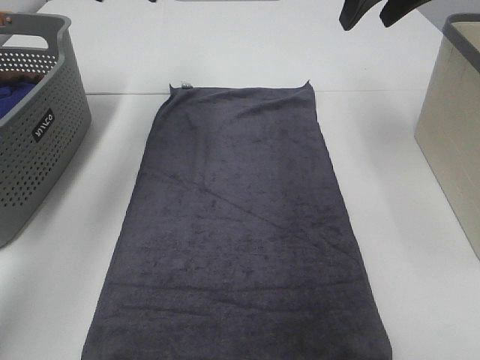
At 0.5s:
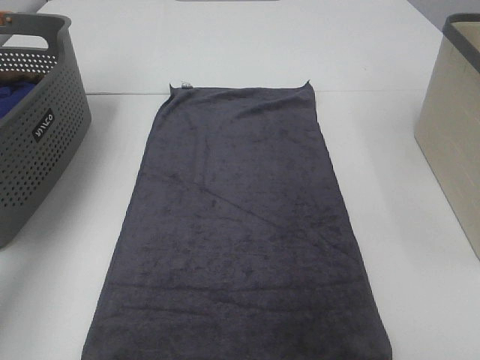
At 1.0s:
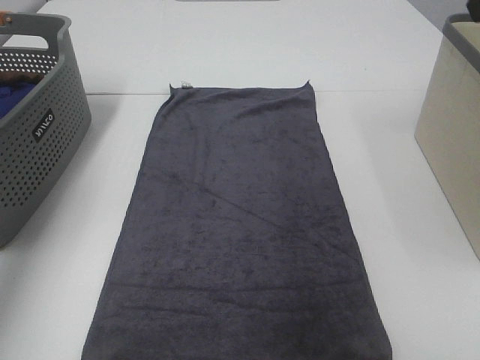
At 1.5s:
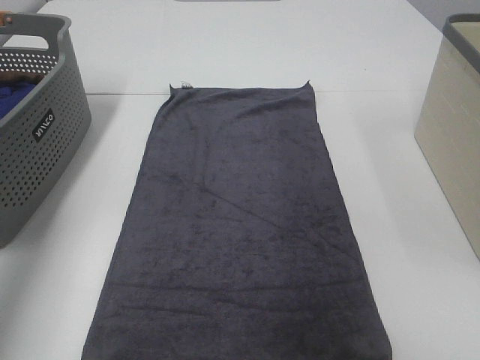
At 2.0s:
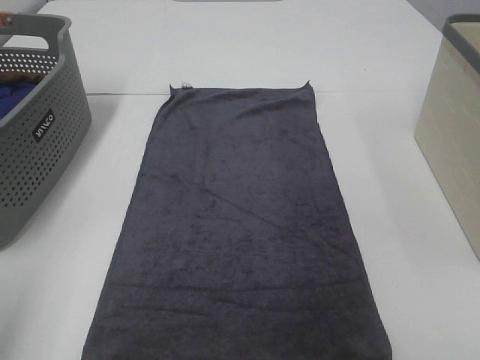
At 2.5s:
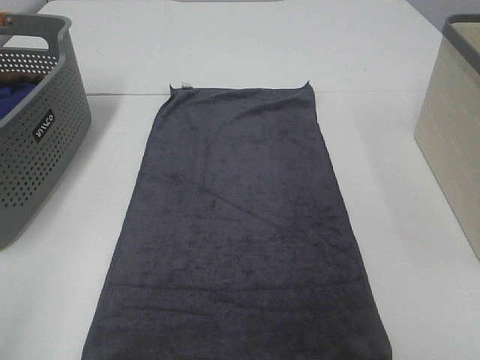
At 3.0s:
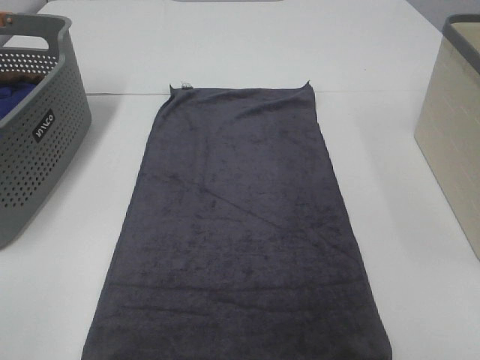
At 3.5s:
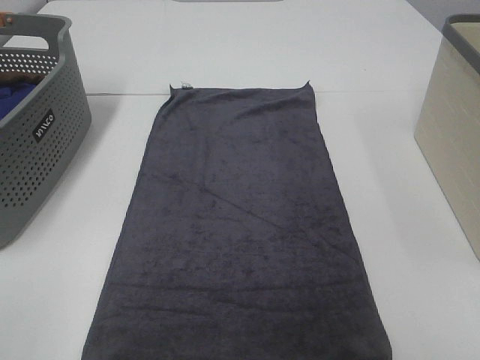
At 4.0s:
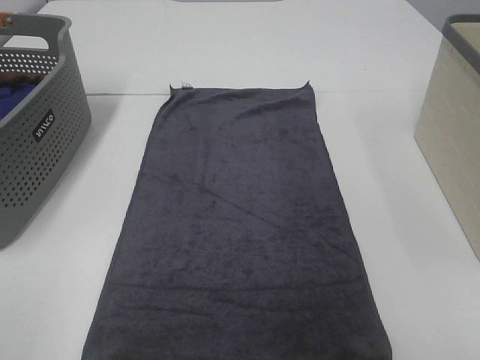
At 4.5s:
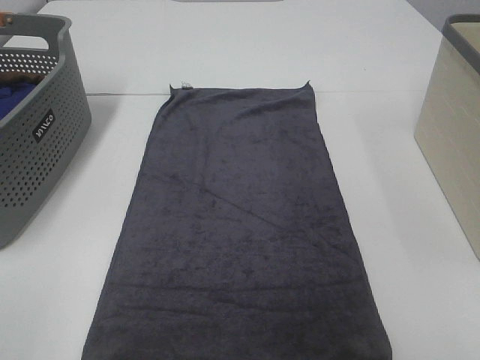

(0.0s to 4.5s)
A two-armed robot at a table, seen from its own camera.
Task of the whole recording: Remove the towel and place it.
0.0s - 2.0s: The grippers both shift backward by roughly 40 cm.
2.0s - 4.5s: The left gripper goes roughly 10 cm backward.

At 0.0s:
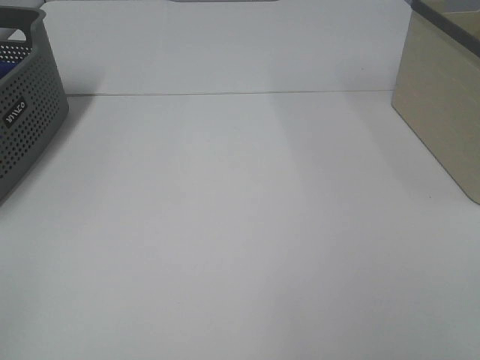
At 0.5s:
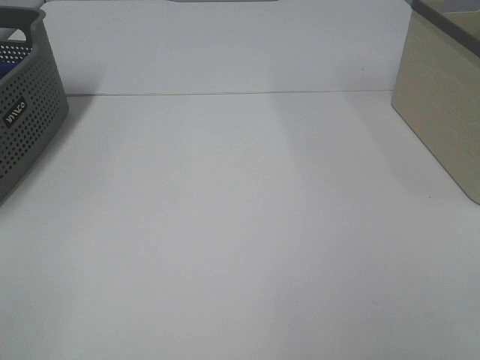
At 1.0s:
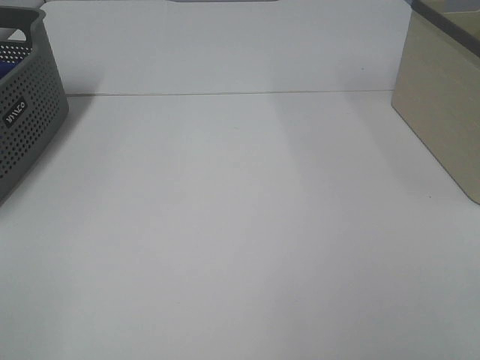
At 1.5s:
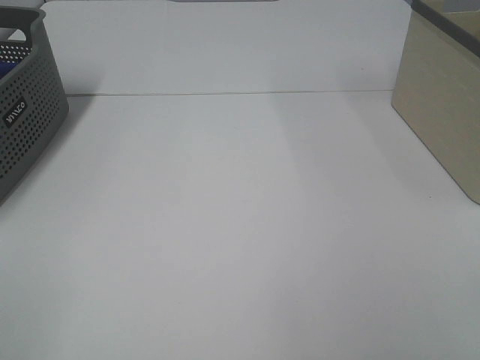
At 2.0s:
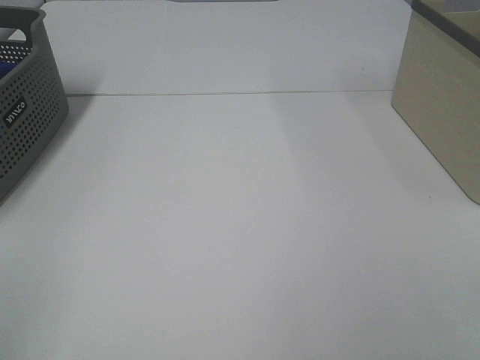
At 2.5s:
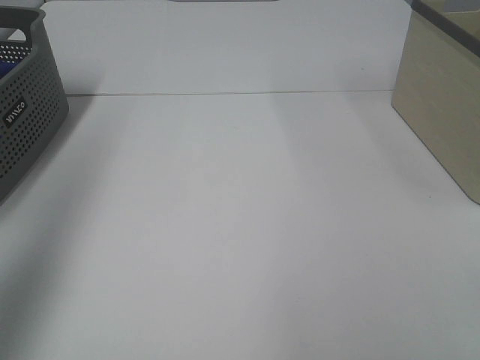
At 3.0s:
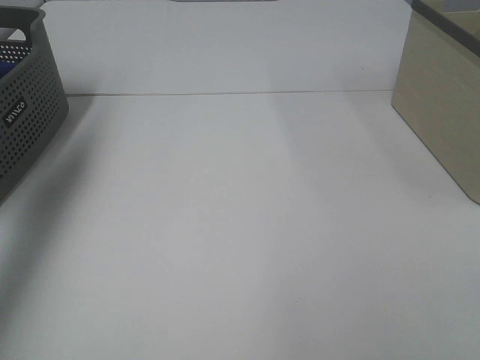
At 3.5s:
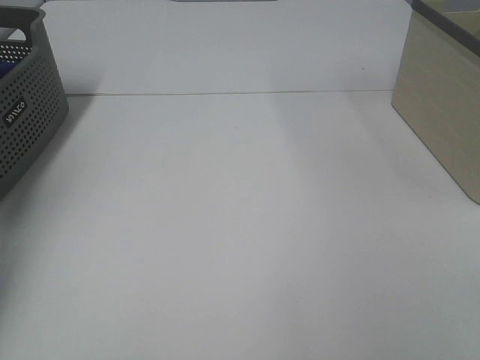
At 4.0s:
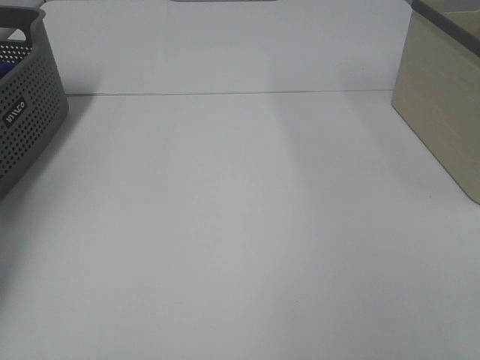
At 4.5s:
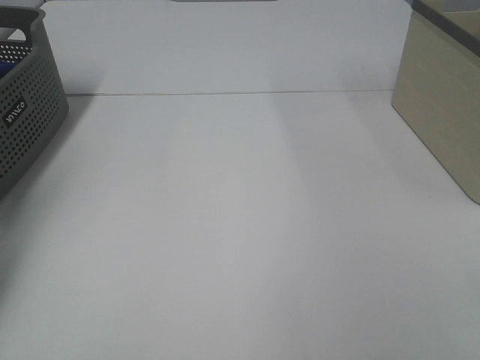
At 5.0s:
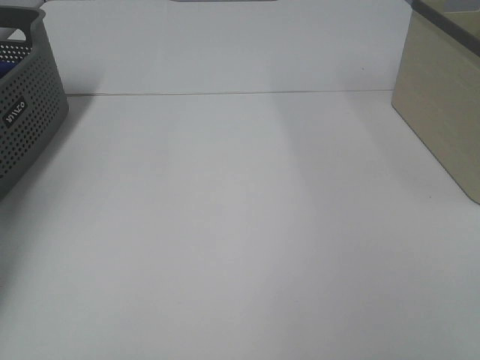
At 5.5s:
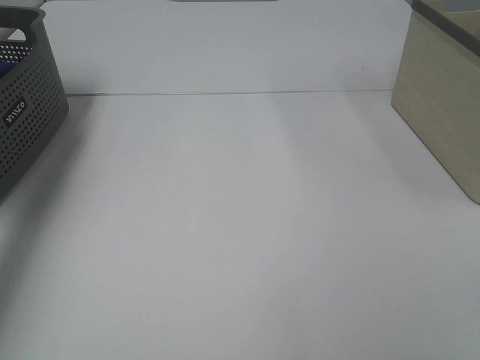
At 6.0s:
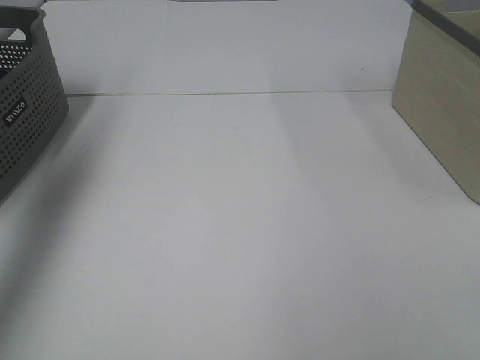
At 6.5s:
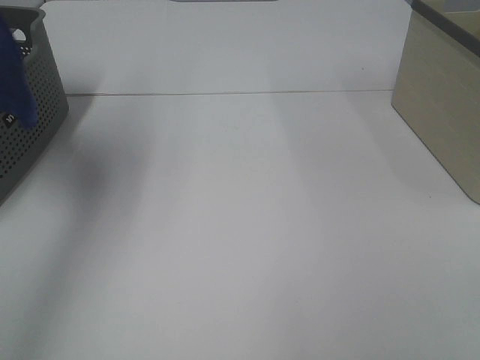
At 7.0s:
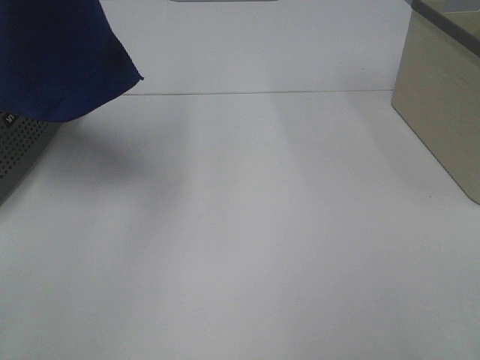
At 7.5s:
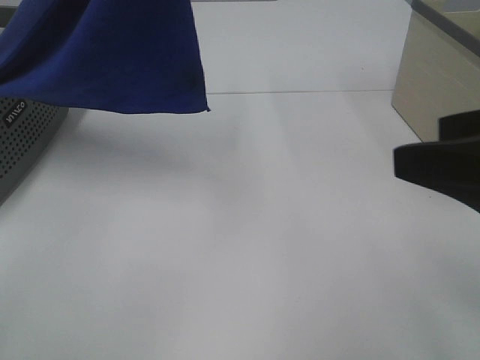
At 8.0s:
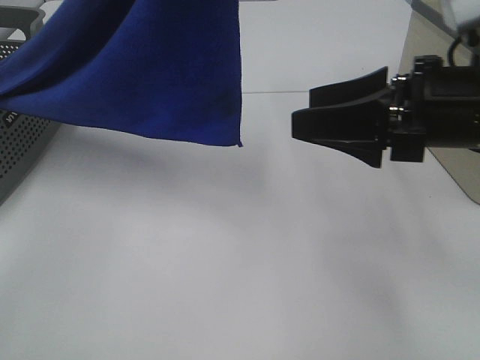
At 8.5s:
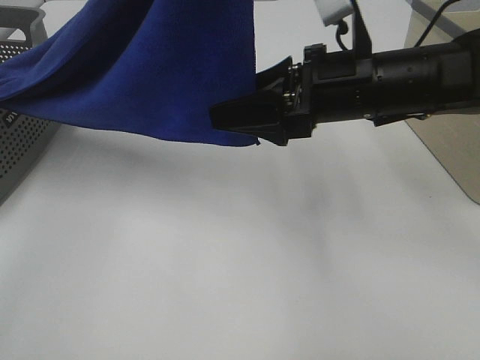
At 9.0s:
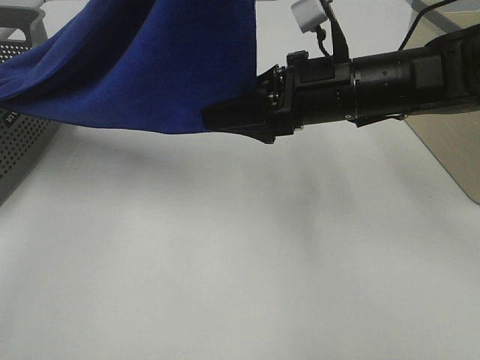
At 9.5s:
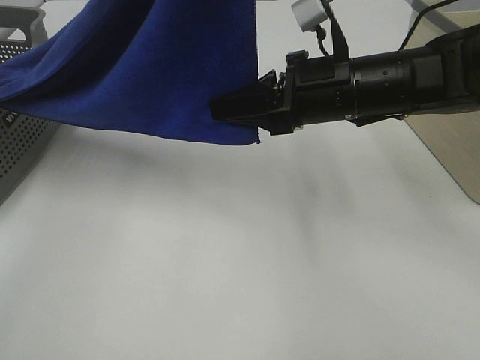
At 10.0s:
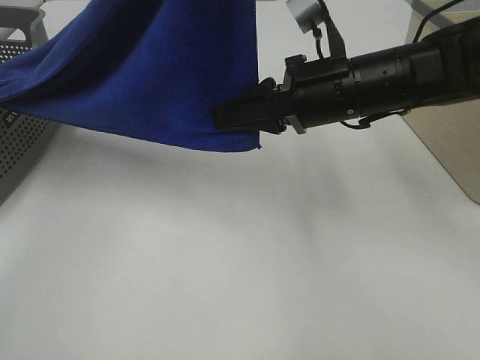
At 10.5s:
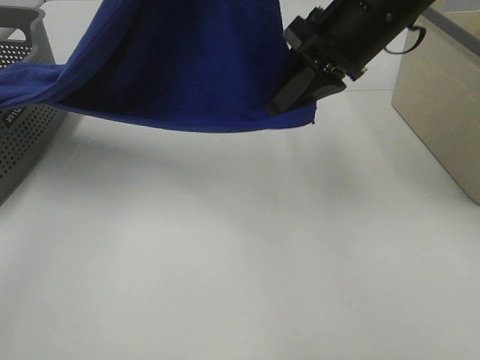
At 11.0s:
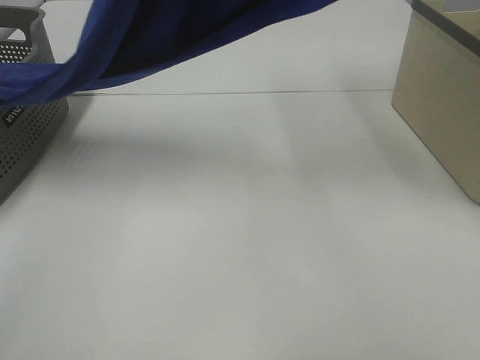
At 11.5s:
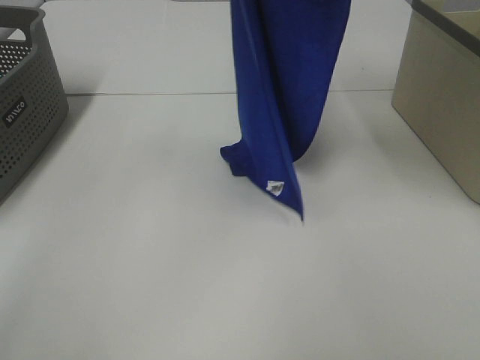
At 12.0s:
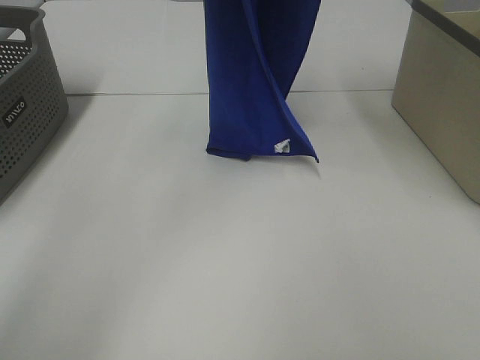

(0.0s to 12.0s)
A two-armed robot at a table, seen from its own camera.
Task of the whole recording: Remove the towel and place it.
Step, 6.5s - 11.0s: Right hand: grab a corner of the blue towel and straighten it.
2.0s - 4.0s: The left gripper heads forward, covering approximately 50 cm.
4.0s - 6.0s: The left gripper heads upward and backward, covering roughly 30 cm, and closes up.
6.0s - 8.0s: The left gripper is displaced to the right by some 30 cm. Meanwhile the right gripper moves forward, some 25 cm.
8.0s - 10.0s: The right gripper moves to the left and forward, about 10 cm, and closes up.
10.0s - 12.0s: The right gripper goes approximately 25 cm upward; the left gripper moves forward, roughly 15 cm.

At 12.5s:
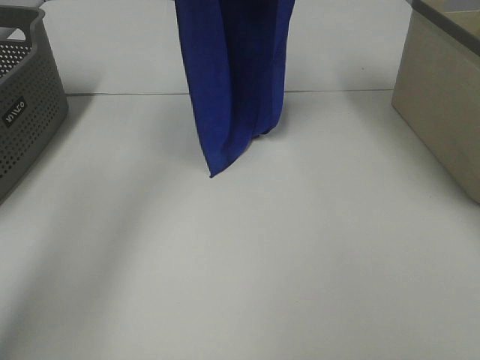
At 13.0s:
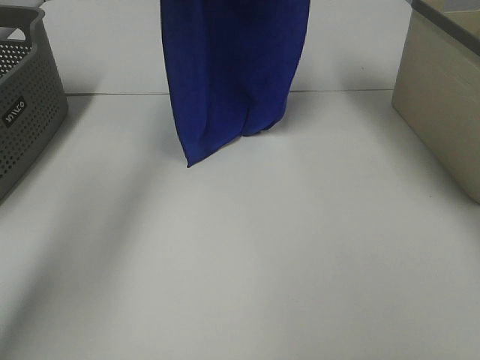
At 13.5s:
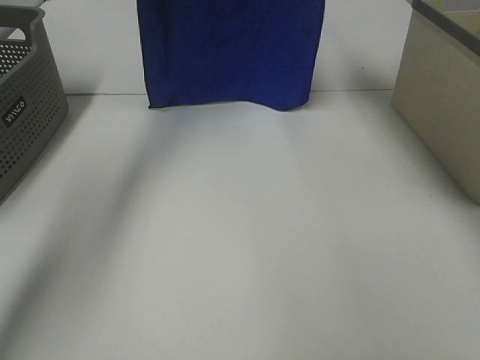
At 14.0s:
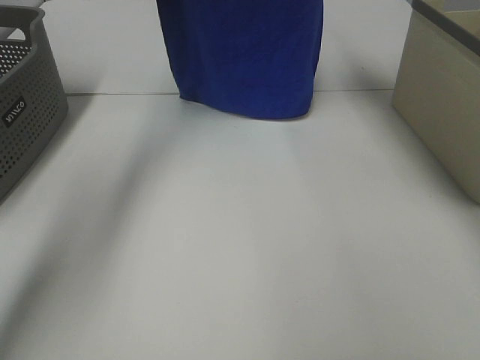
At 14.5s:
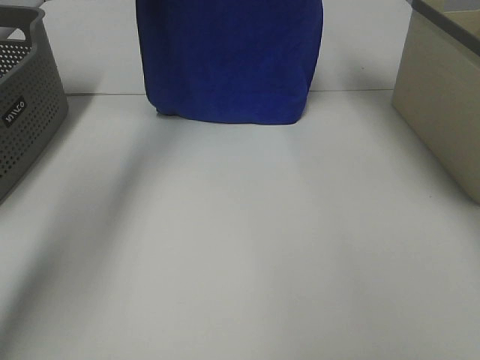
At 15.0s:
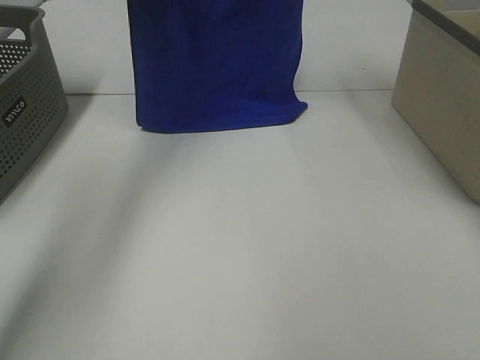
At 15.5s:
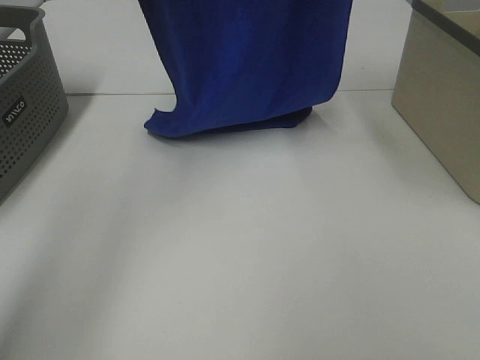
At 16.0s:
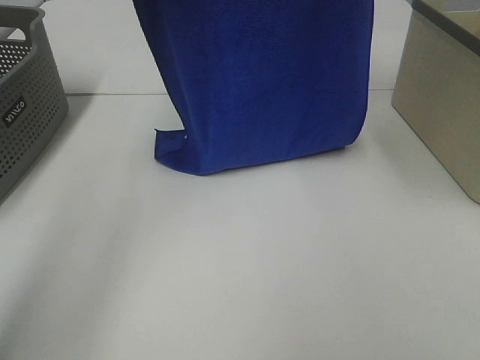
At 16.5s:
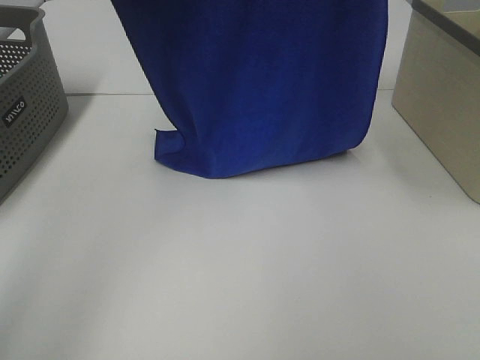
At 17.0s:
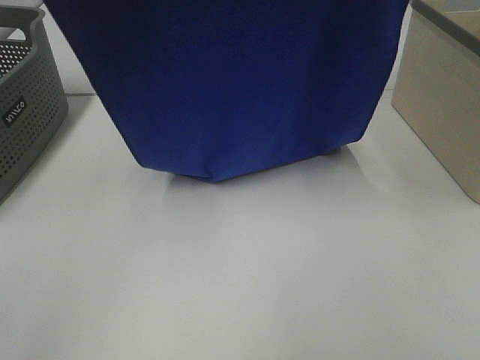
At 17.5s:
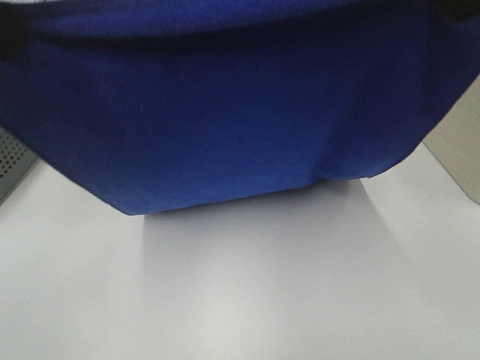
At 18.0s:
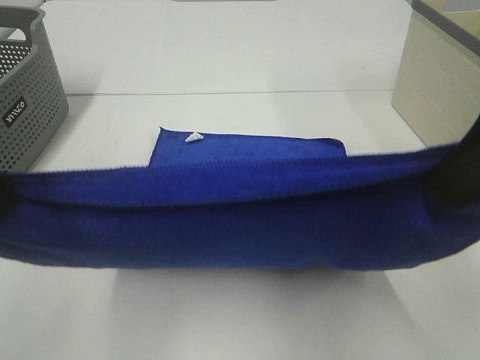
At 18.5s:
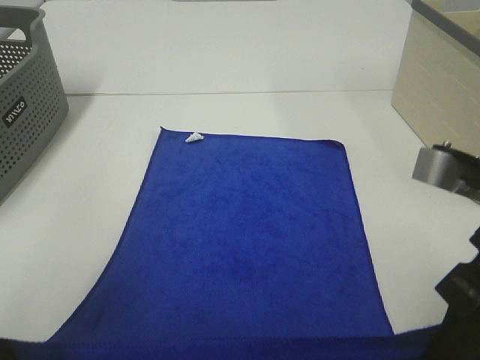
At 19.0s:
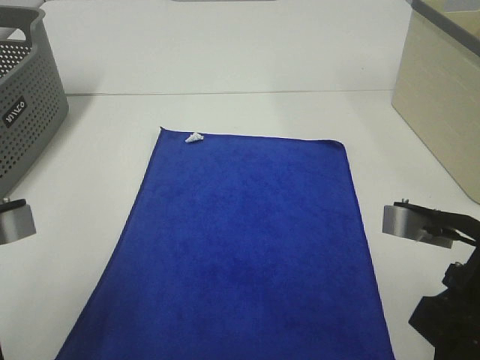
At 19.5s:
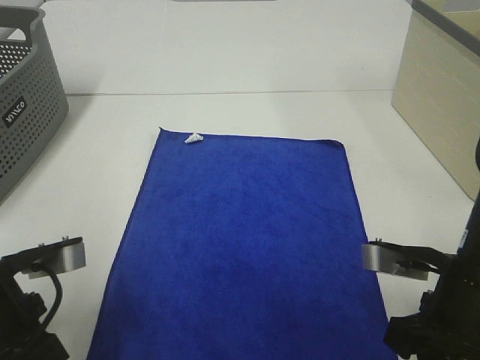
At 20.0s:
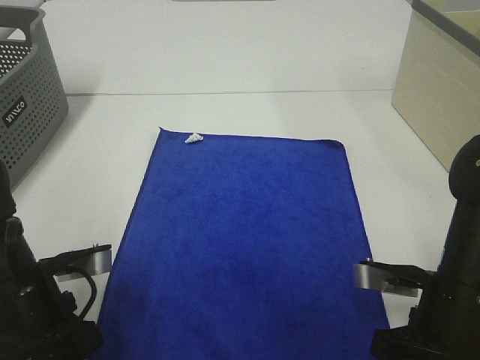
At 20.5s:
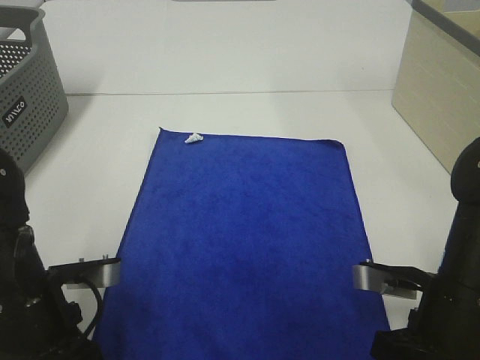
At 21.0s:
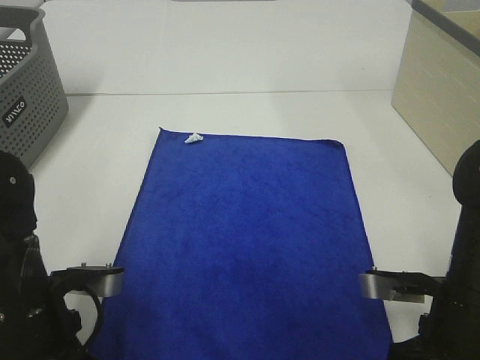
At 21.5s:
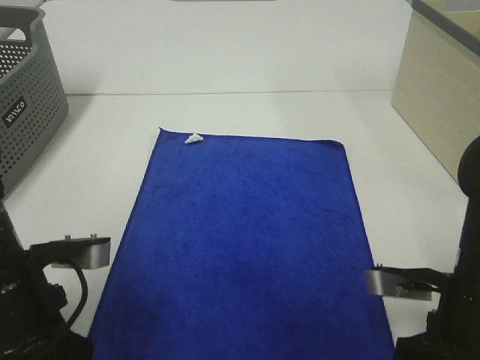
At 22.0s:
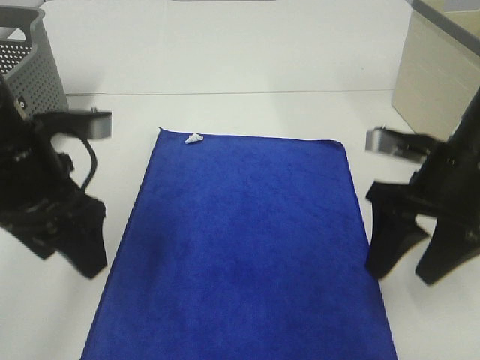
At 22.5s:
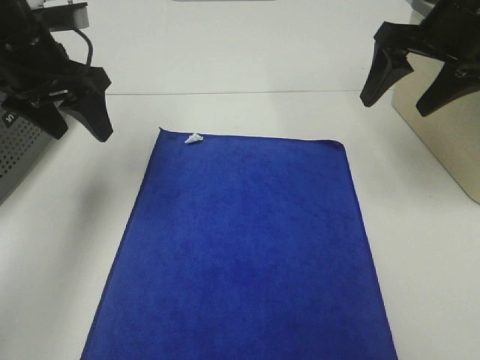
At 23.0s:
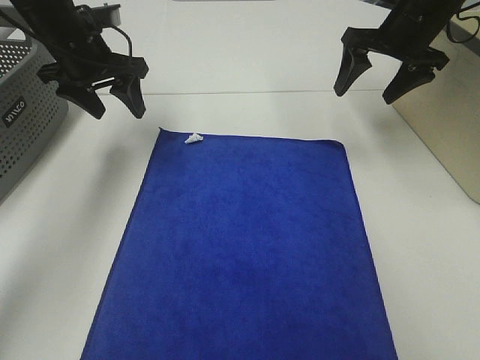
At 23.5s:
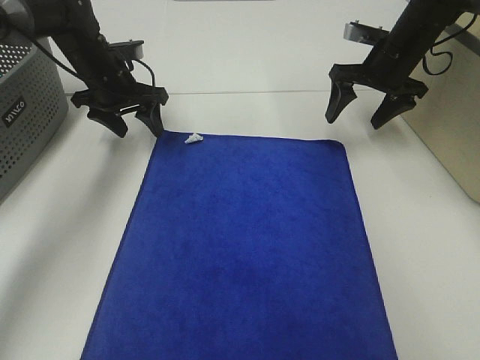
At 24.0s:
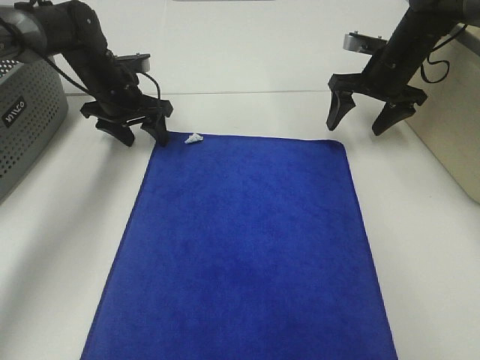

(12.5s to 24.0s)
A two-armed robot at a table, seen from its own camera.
Task of the whole recording: Remove the towel and place it.
Step, 12.5s - 16.5s: Left hand: spread the blue towel flat on the table.
Step, 12.5s - 16.5s: Right hand: spread the blue towel flat on the table.
12.5s - 14.5s: The left gripper changes place by about 5 cm.
14.5s - 16.5s: The two grippers go about 15 cm backward.
16.5s - 18.5s: The left gripper shifts approximately 30 cm backward and downward, while the right gripper heads downward and backward, covering about 30 cm.
18.5s - 20.0s: The left gripper heads downward and forward, covering roughly 15 cm; the right gripper goes roughly 10 cm downward.
20.0s - 22.0s: The right gripper heads forward and upward, covering some 10 cm, and opens up. Meanwhile the left gripper is displaced upward and forward by some 10 cm, and opens.
22.0s - 24.0s: Both grippers travel together forward, roughly 25 cm.
